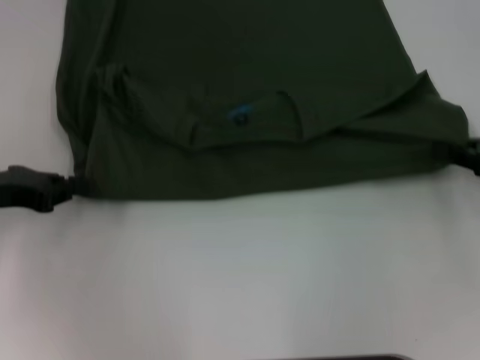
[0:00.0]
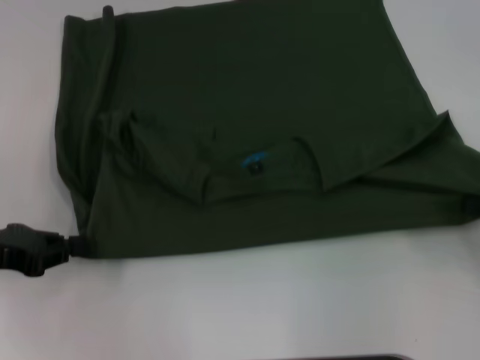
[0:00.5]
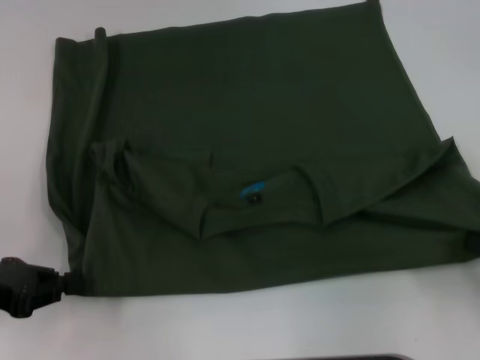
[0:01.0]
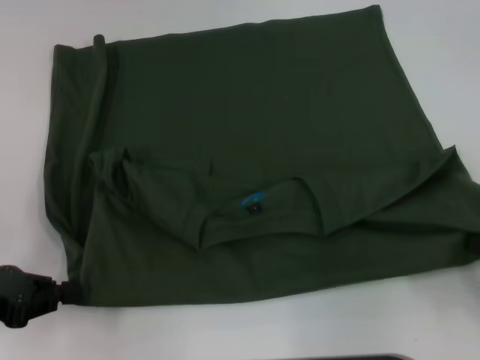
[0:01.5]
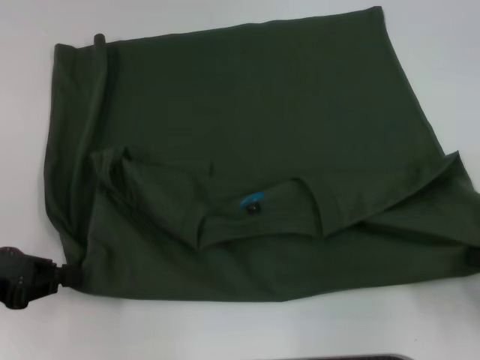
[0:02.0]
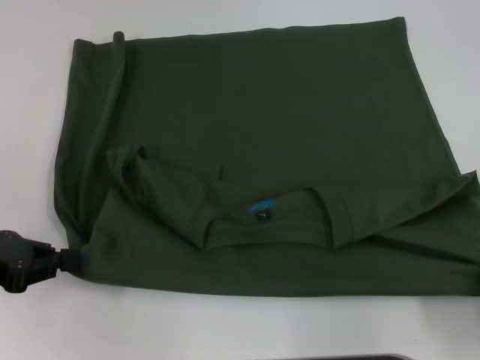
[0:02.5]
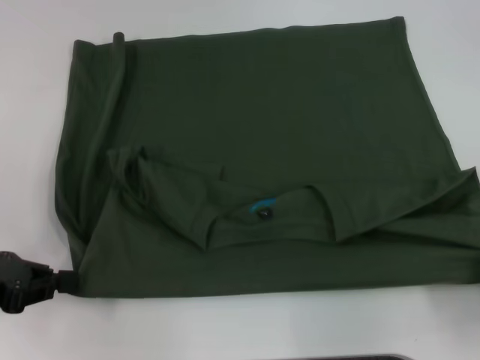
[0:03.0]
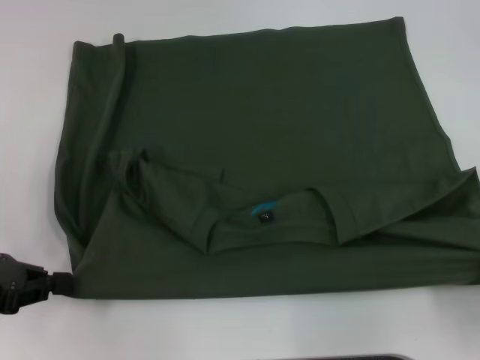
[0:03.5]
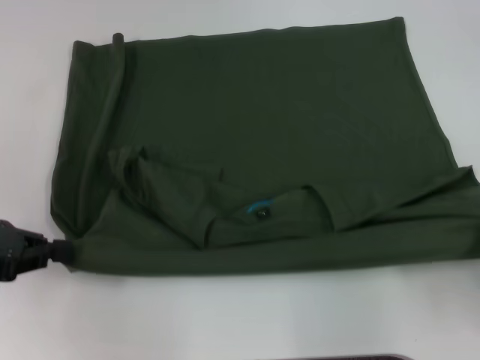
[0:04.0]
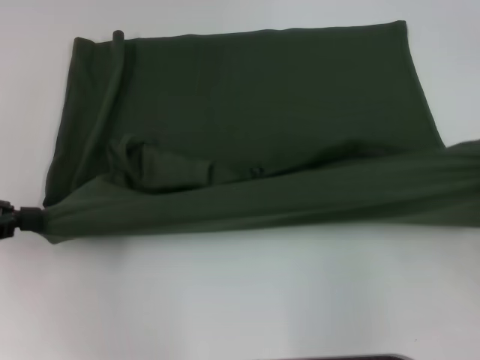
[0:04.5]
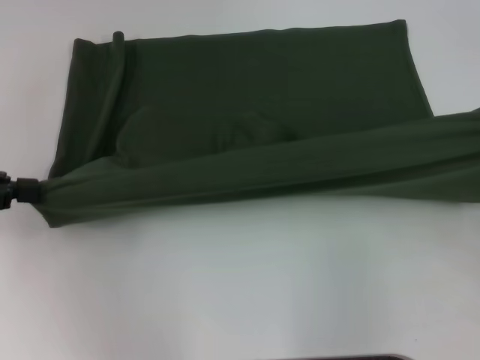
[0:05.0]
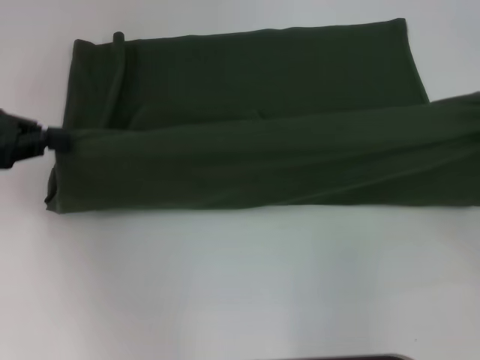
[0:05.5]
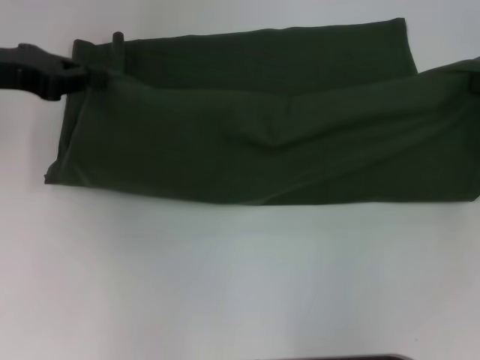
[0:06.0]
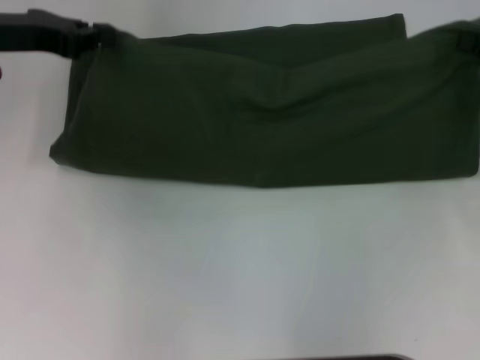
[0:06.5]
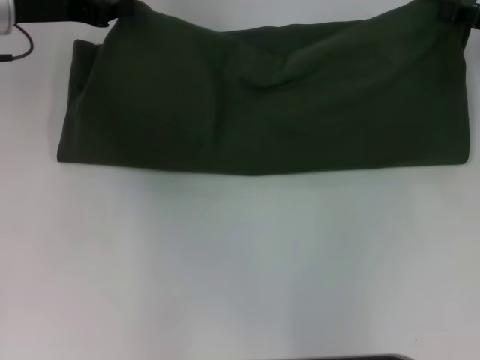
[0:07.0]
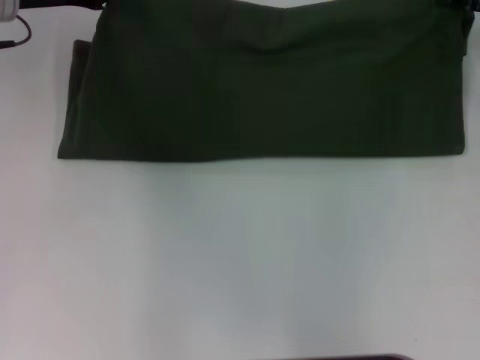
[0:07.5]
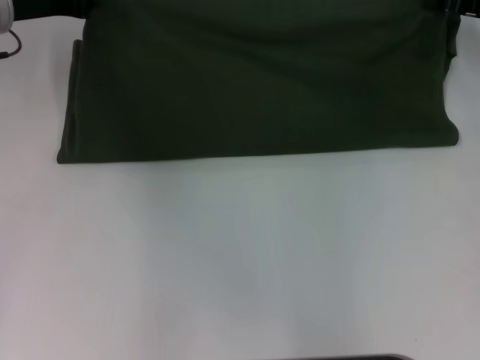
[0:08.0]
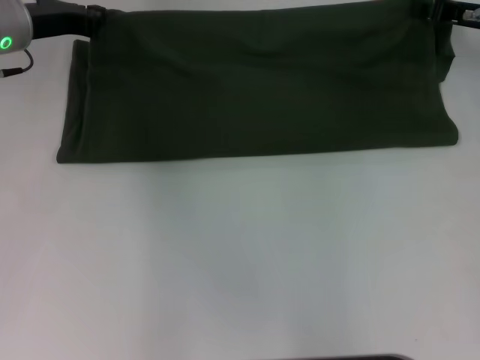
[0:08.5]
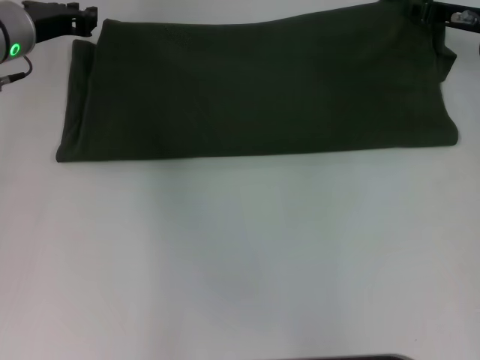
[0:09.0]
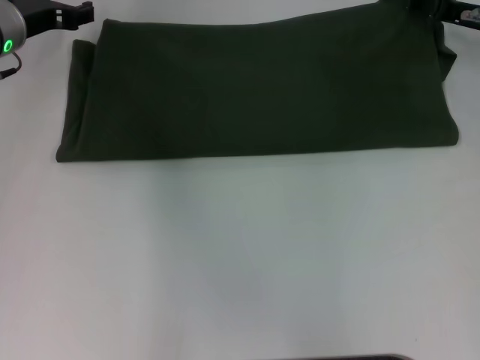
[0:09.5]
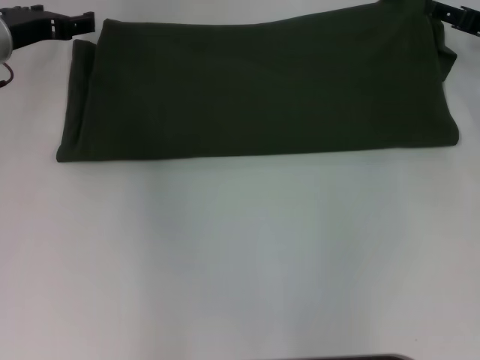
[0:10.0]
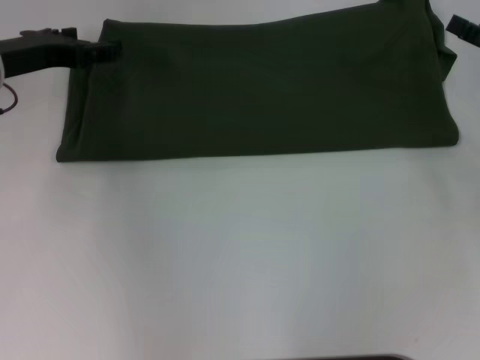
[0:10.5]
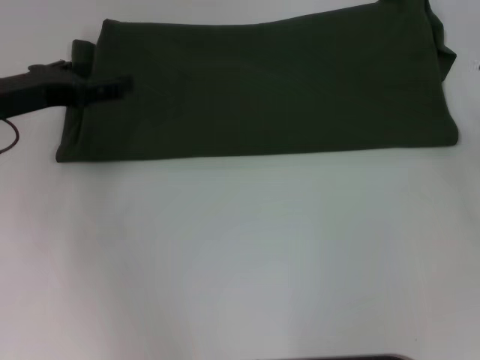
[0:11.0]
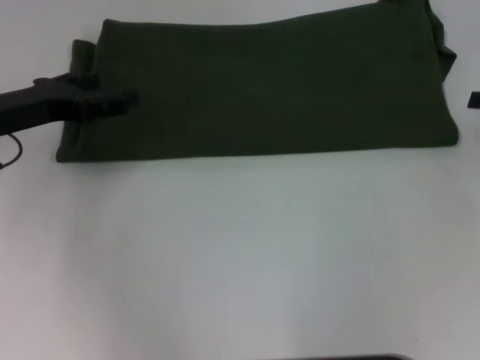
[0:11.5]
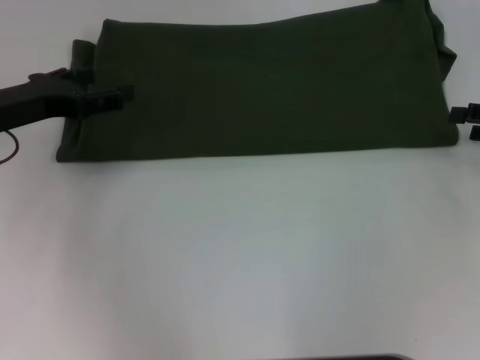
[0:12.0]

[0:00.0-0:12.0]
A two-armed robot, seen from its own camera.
Step, 0:00.0 to 0:03.0: Pull the clothes with your left hand.
Step, 0:00.0 to 0:03.0: Pull the clothes with your right hand.
Step, 0:03.5 to 0:09.0: Fold the clothes with your right hand.
0:00.0 to 0:02.0: The left gripper shifts some 5 cm backward; the right gripper is displaced backward by approximately 15 cm.
0:02.0 to 0:04.0: The grippers stay close to where they were, moving slightly.
0:04.0 to 0:06.0: The right gripper goes roughly 15 cm forward. The left gripper heads forward and upward, covering approximately 15 cm.
0:06.0 to 0:08.0: The left gripper is displaced forward by roughly 5 cm. Meanwhile the right gripper shifts some 15 cm forward and to the left.
0:08.0 to 0:10.0: The left gripper opens. Meanwhile the right gripper opens its fingers.
0:10.0 to 0:12.0: The left gripper shifts some 10 cm backward. The right gripper goes roughly 10 cm backward and to the right.

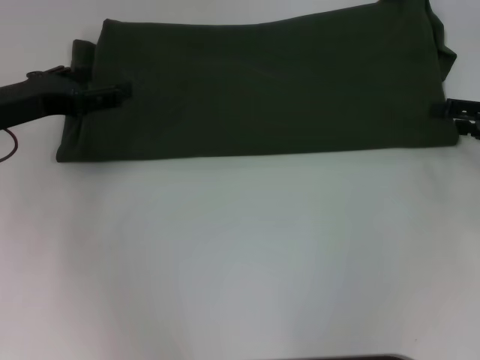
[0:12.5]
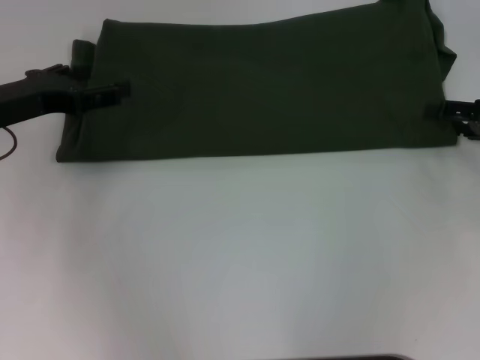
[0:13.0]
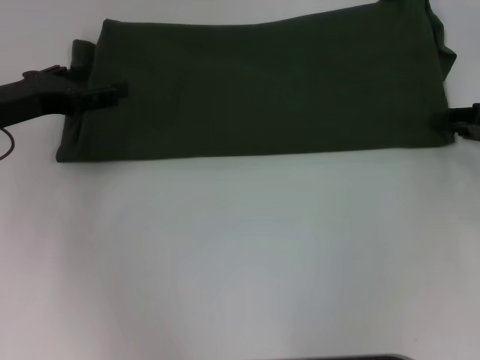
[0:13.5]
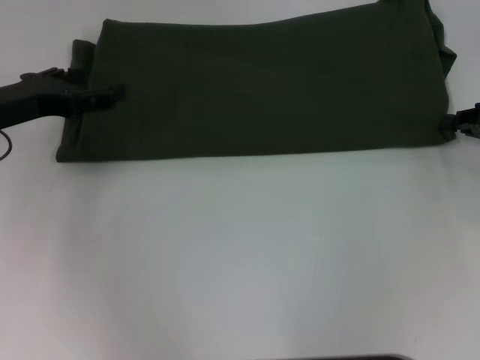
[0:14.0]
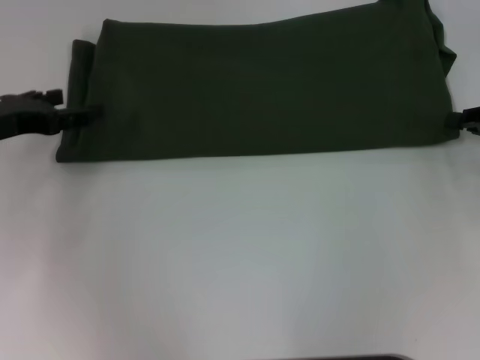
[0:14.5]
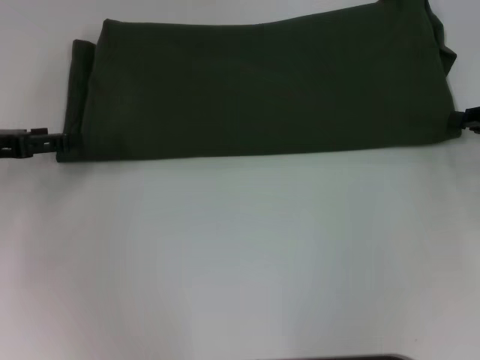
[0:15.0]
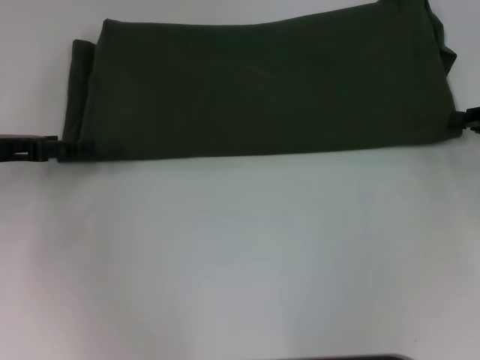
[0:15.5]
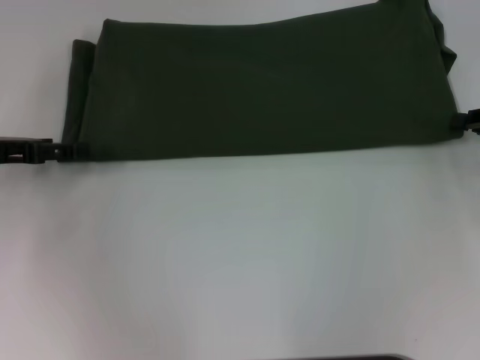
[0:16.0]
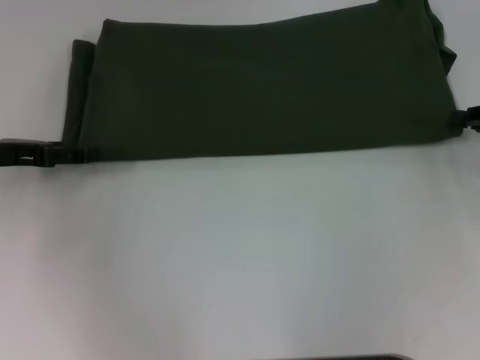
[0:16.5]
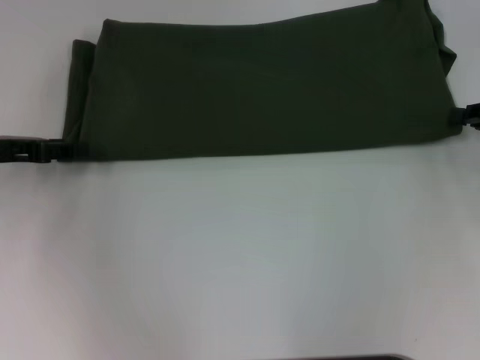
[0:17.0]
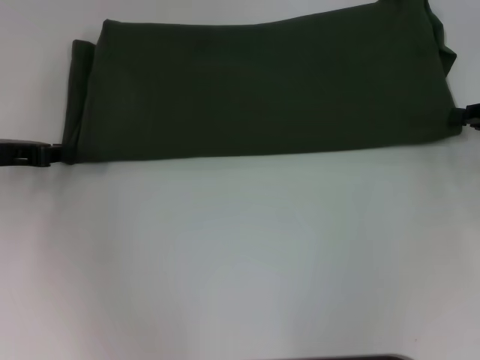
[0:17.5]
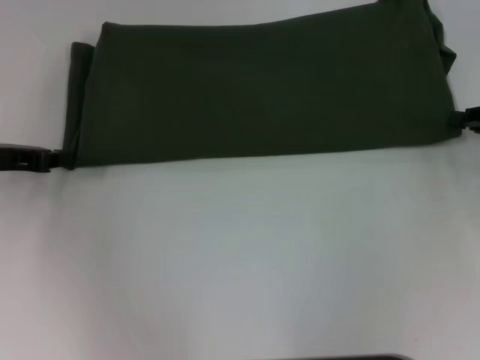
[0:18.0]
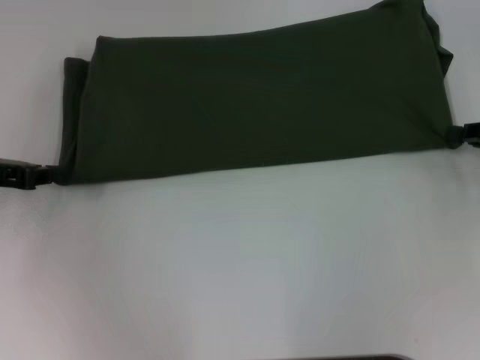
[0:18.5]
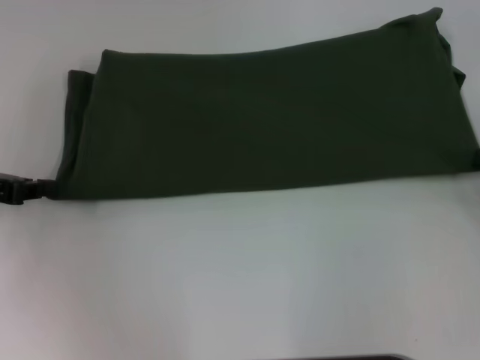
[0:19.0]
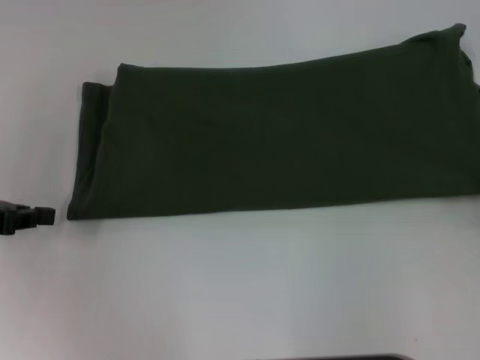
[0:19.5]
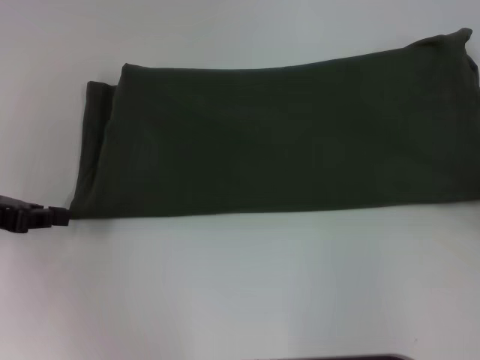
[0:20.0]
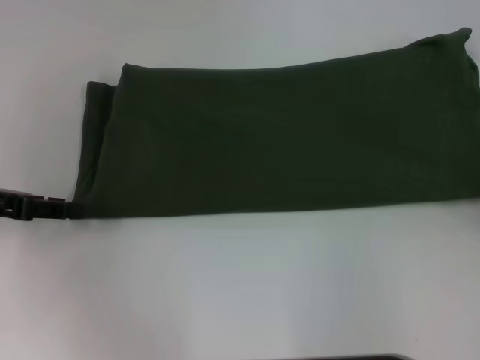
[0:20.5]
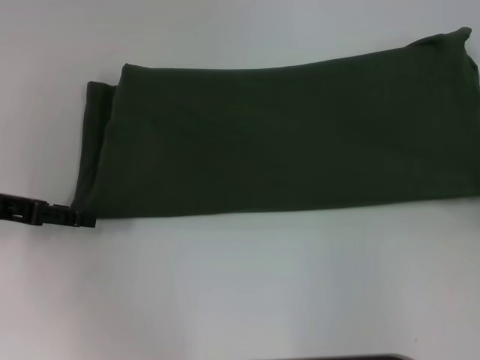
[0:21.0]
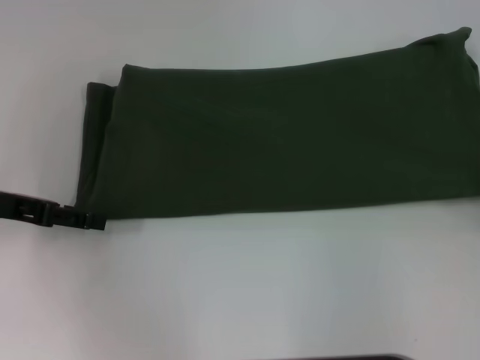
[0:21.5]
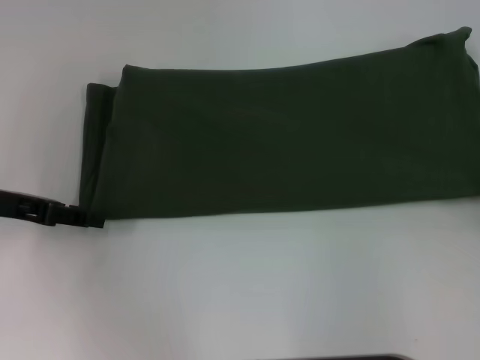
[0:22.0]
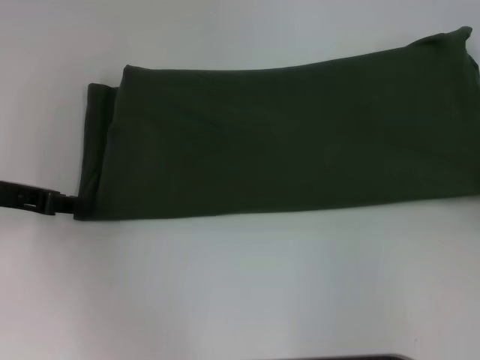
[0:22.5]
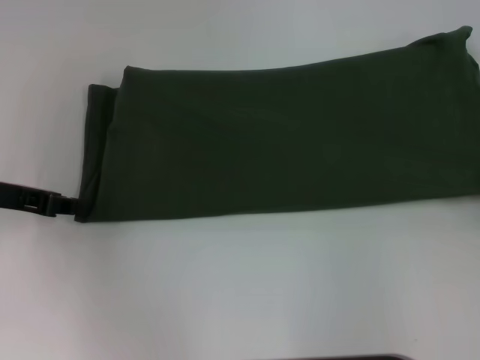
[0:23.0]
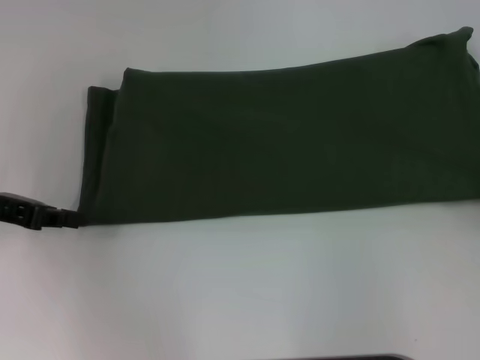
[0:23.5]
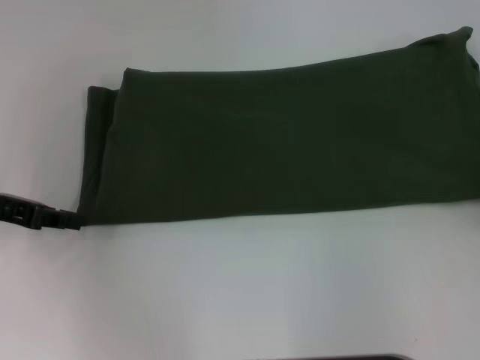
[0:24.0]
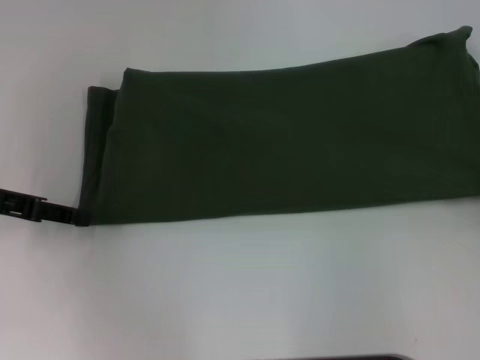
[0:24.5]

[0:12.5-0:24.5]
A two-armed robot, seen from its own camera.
0:14.5 to 0:16.5: There are only small adjustments of the grippers.
0:16.5 to 0:18.5: The left gripper closes up.
0:18.5 to 0:20.5: The right gripper heads backward, covering some 10 cm.
0:20.5 to 0:22.5: The left gripper opens, then closes again.
0:22.5 to 0:24.5: The left gripper closes and opens again.

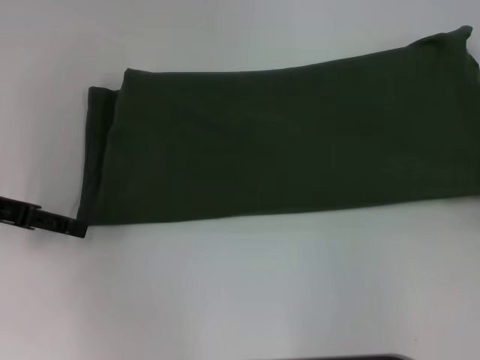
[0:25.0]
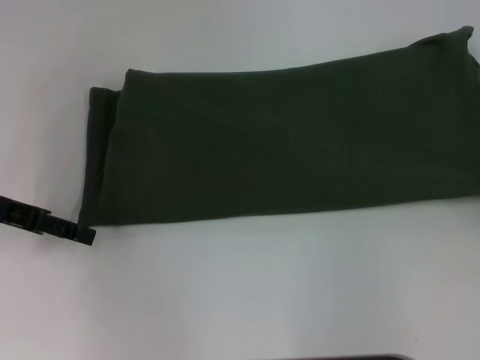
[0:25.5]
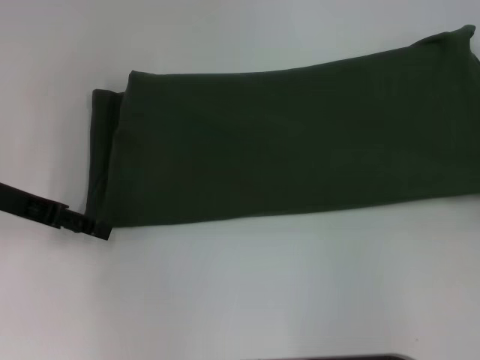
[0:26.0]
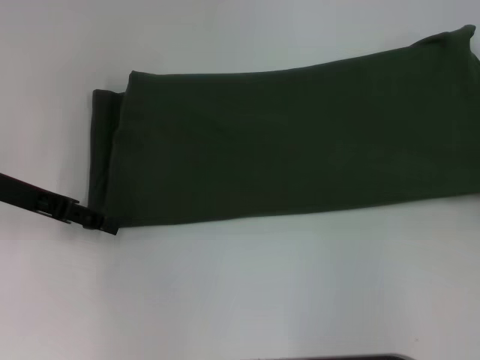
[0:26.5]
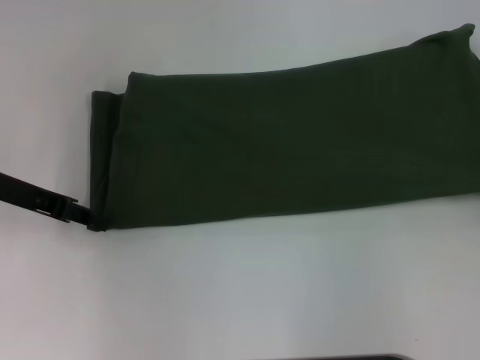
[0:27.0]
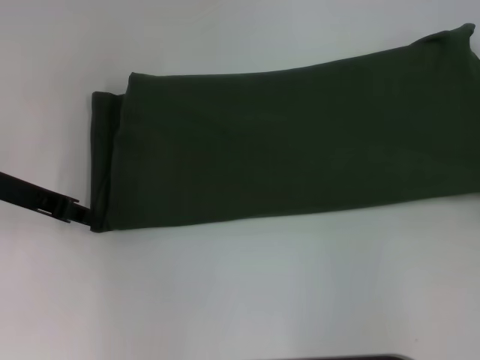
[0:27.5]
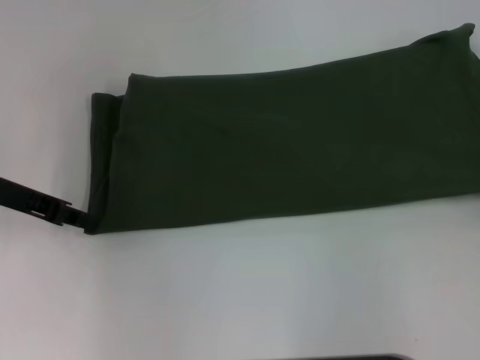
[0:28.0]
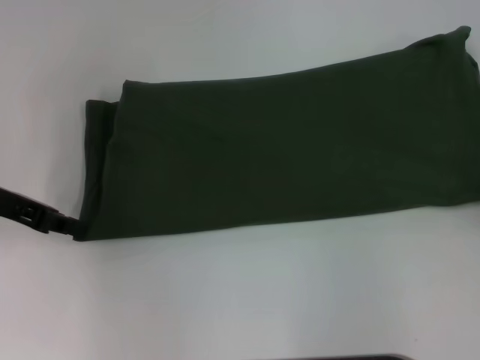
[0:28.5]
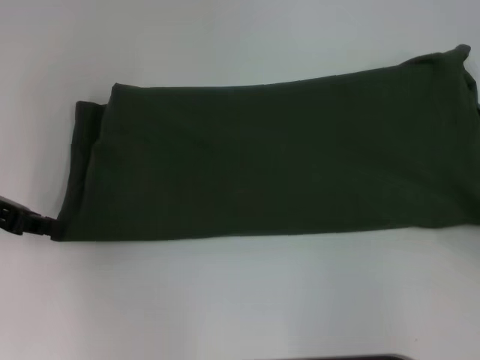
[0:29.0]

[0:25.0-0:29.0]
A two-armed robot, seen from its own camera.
0:25.0 to 0:27.0: The grippers move only a little.
0:27.0 to 0:29.0: The left gripper closes its fingers.
